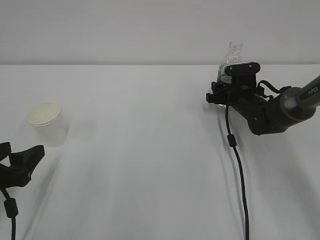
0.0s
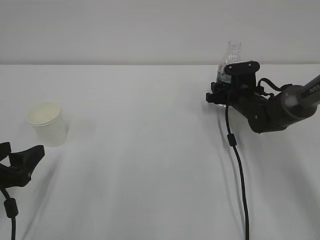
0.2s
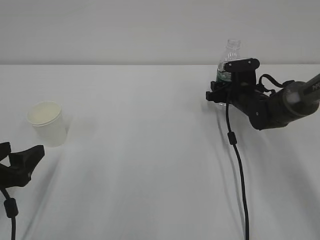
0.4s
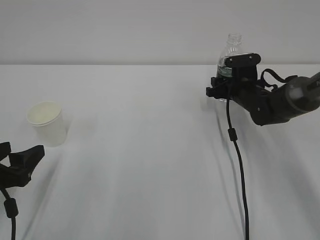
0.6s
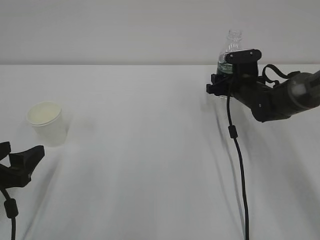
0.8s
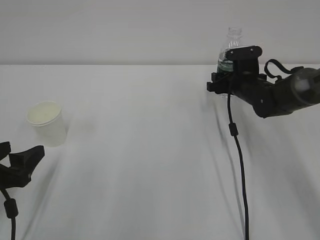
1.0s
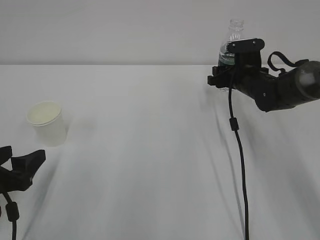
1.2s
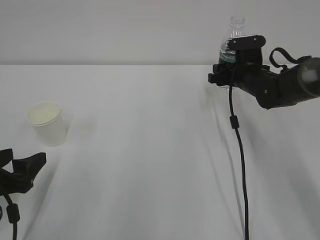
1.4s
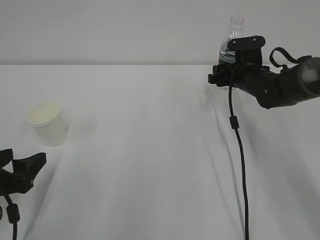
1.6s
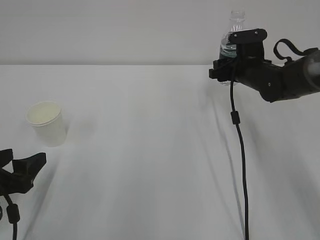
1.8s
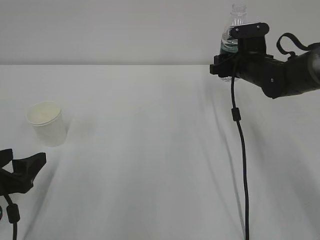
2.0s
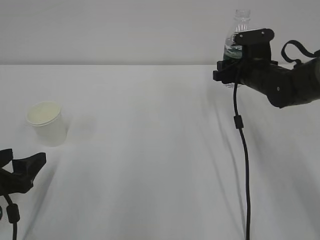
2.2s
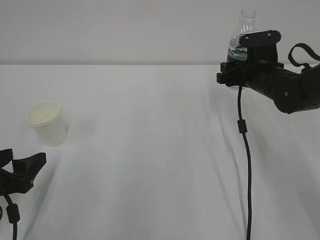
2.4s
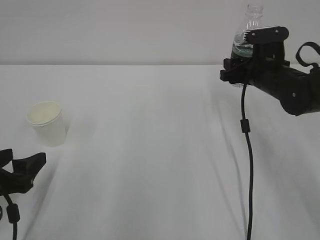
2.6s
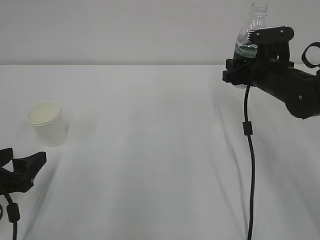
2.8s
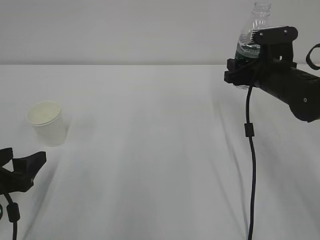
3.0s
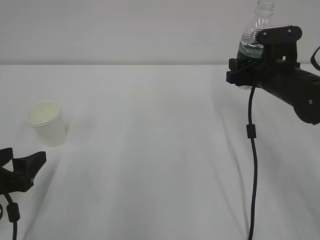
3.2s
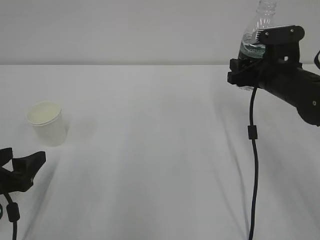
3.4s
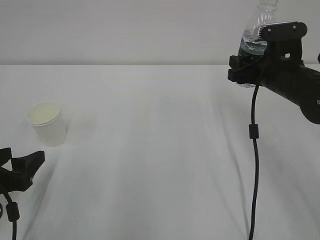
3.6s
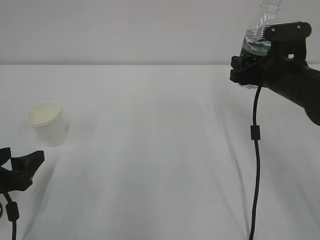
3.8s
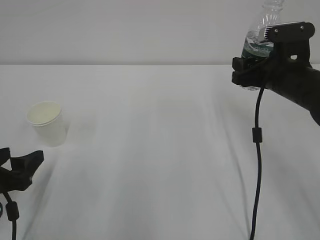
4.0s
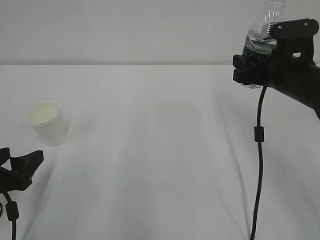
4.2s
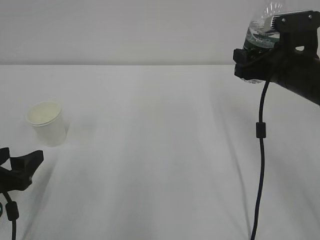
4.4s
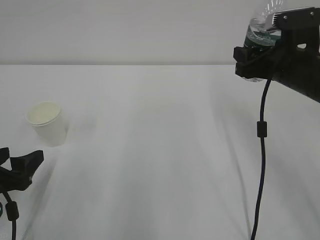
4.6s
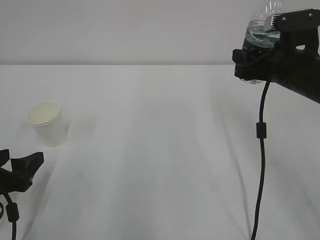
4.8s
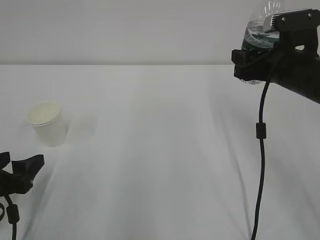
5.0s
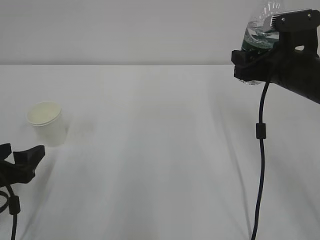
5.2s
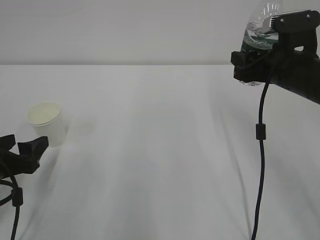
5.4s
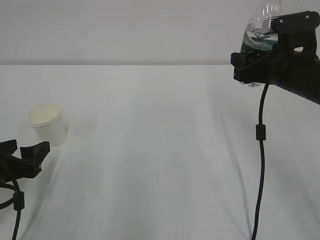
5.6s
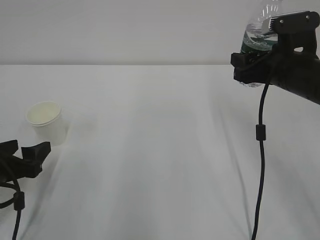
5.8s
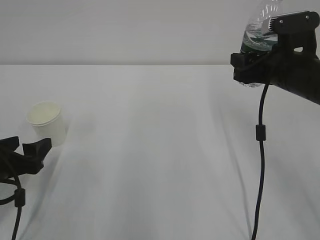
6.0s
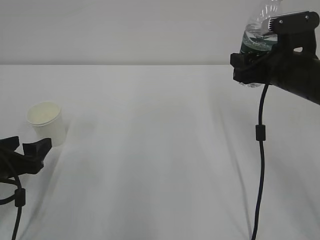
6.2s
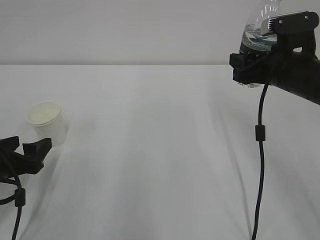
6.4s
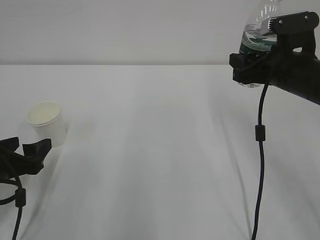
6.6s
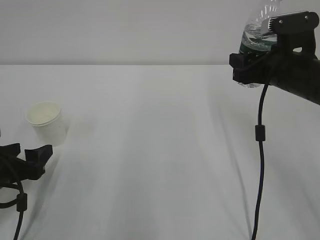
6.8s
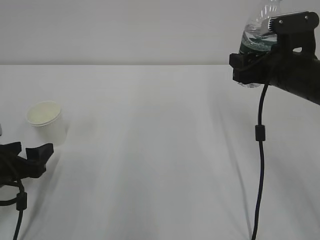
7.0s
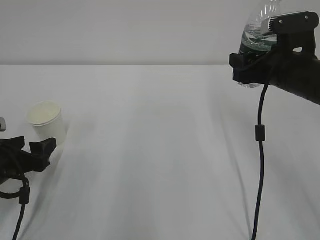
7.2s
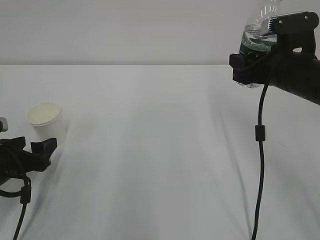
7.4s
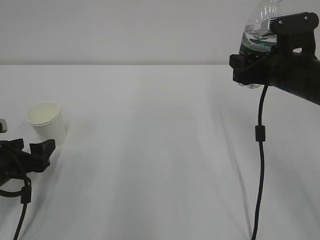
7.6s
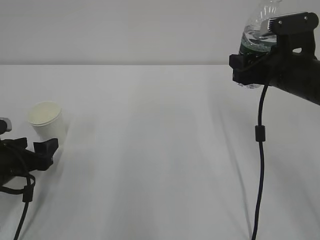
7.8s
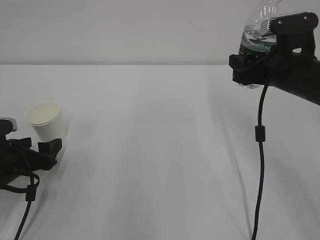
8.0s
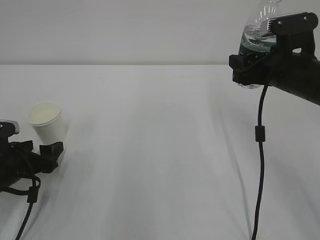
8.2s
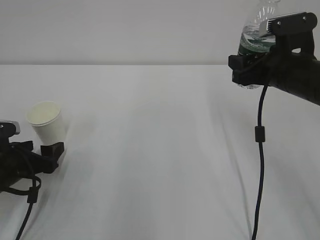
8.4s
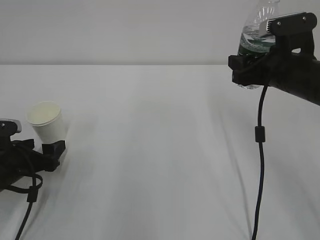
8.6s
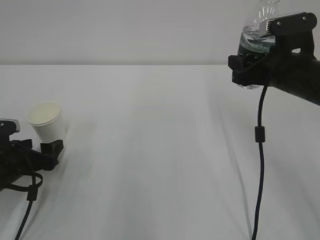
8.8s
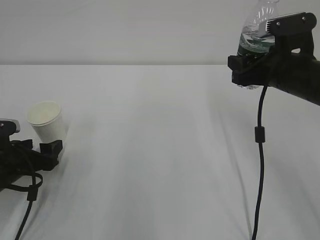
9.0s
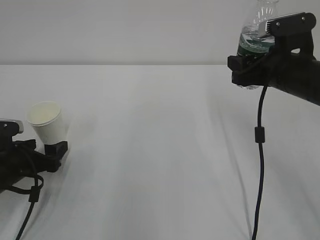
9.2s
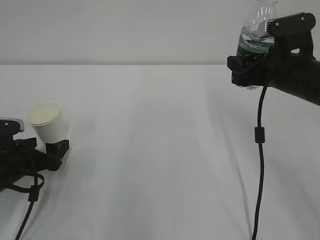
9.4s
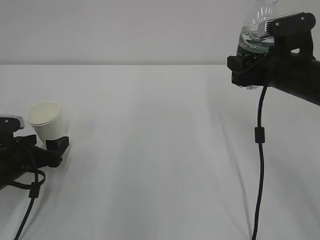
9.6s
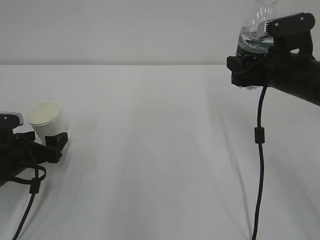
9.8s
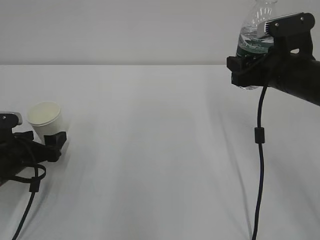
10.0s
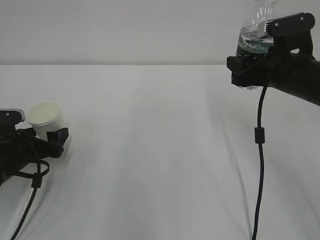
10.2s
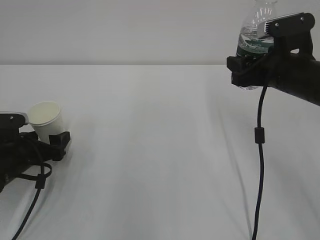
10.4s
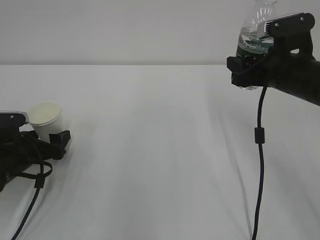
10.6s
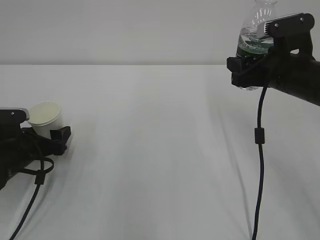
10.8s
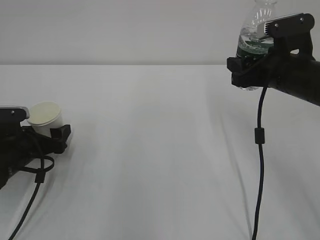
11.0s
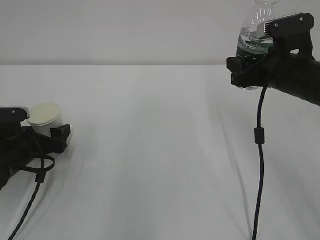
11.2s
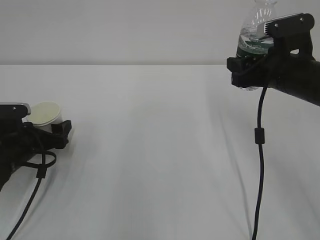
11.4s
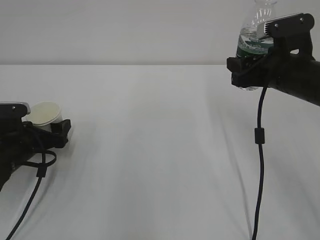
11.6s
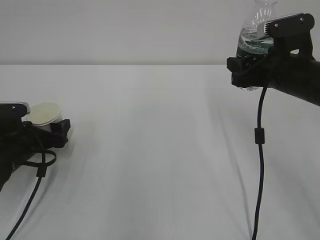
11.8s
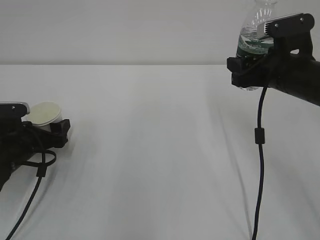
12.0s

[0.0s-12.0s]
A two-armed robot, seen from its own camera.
0.0s to 1.6s: The right gripper goes about 5 cm upward.
1.6s to 3.0s: The right gripper heads backward, covering some 10 cm.
3.0s to 4.4s: The right gripper ends up some 5 cm from where it was.
4.4s to 7.6s: There are only small adjustments of the grippers.
7.6s to 10.4s: The grippers stay close to where they were, moving slightly.
10.4s to 12.0s: The grippers make only small movements.

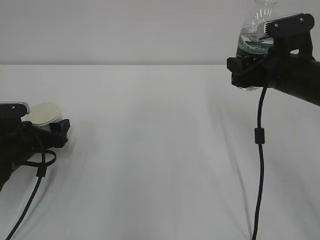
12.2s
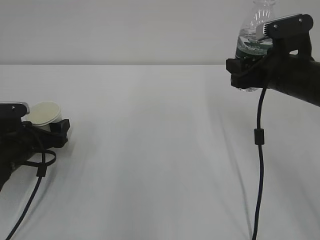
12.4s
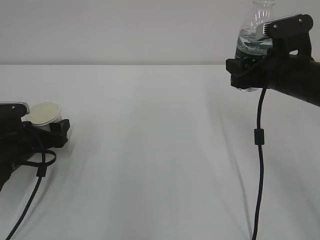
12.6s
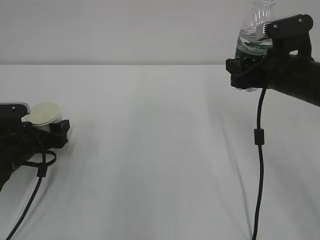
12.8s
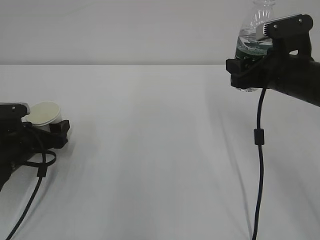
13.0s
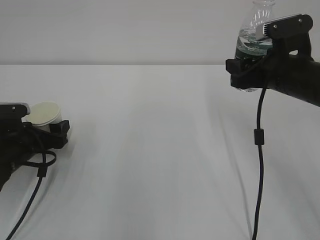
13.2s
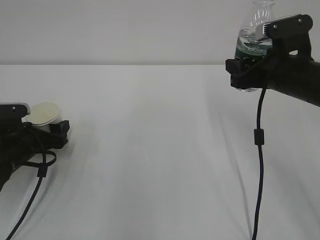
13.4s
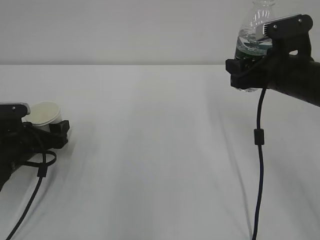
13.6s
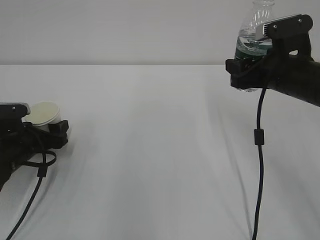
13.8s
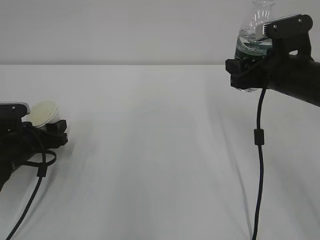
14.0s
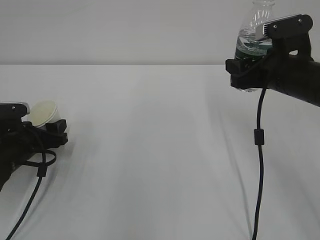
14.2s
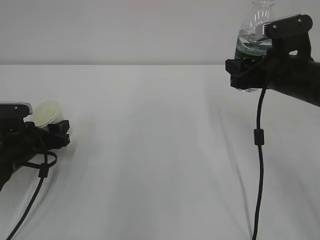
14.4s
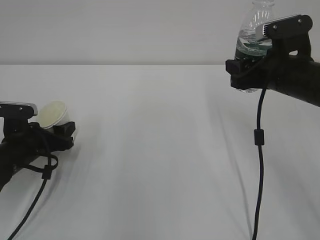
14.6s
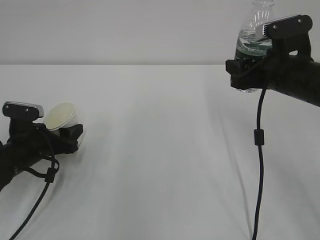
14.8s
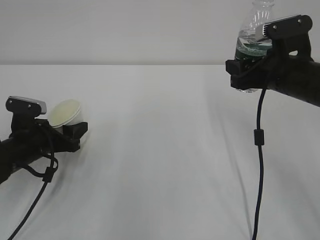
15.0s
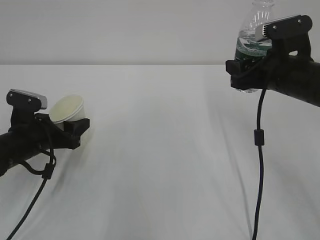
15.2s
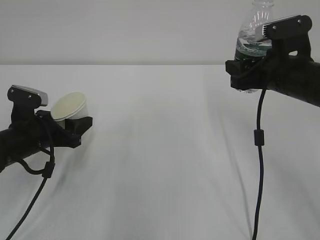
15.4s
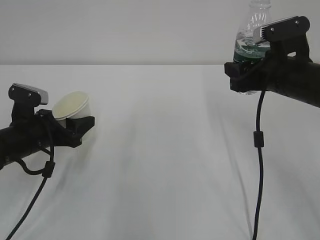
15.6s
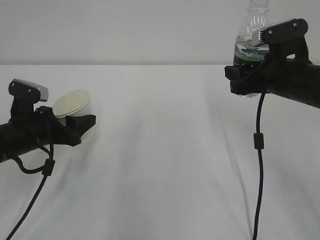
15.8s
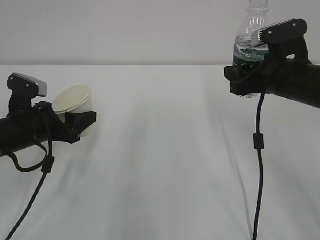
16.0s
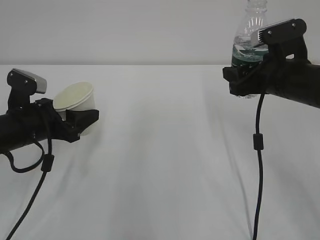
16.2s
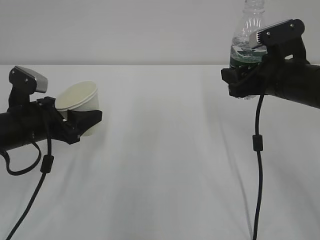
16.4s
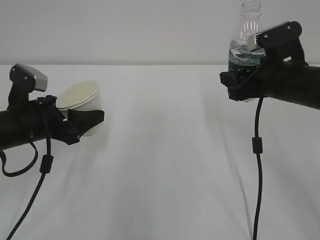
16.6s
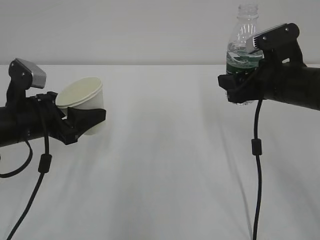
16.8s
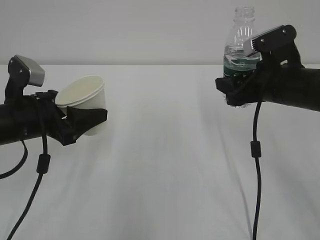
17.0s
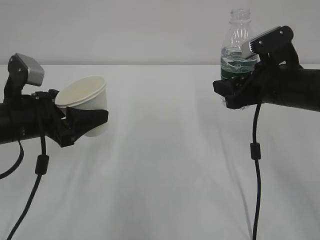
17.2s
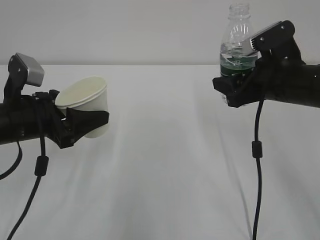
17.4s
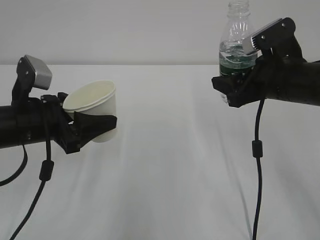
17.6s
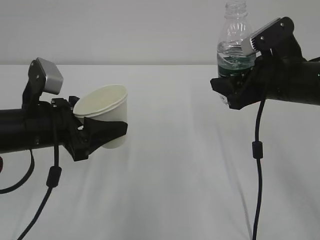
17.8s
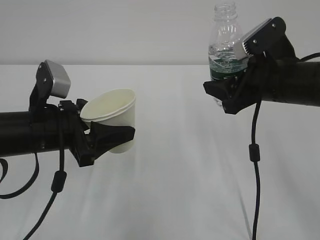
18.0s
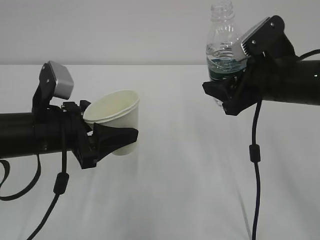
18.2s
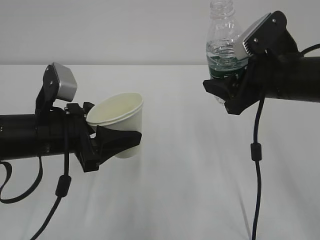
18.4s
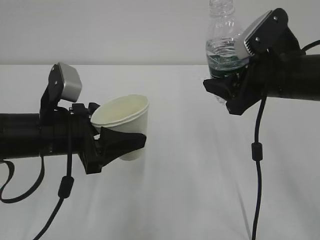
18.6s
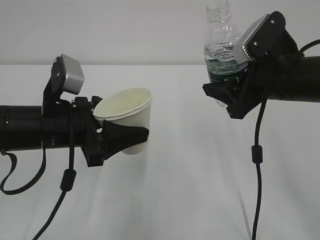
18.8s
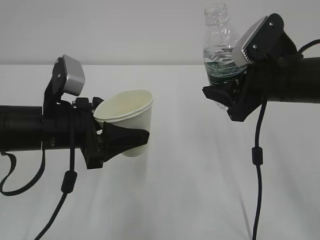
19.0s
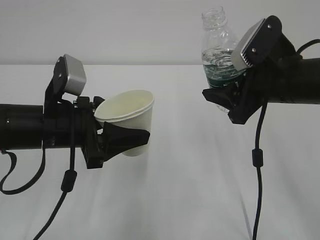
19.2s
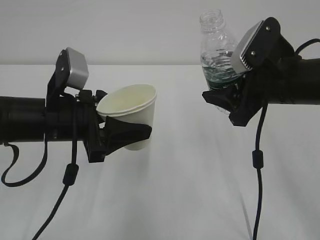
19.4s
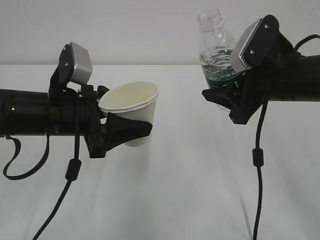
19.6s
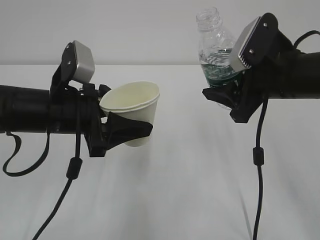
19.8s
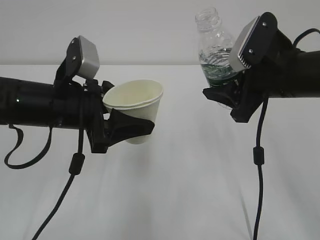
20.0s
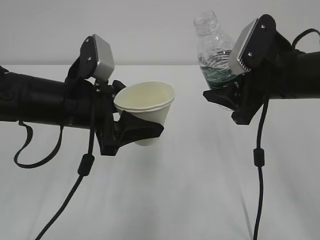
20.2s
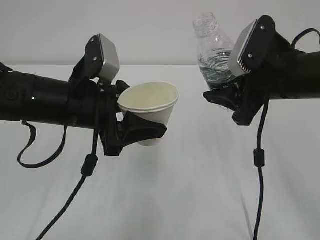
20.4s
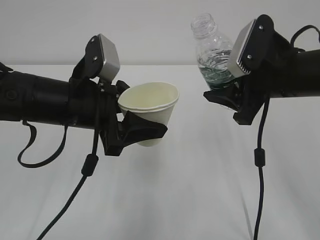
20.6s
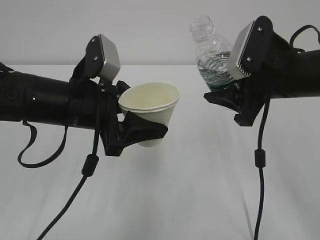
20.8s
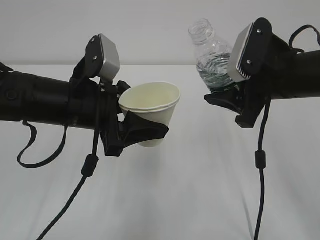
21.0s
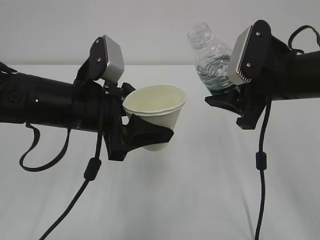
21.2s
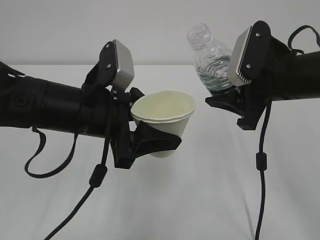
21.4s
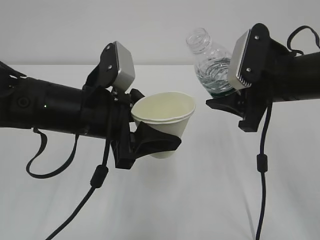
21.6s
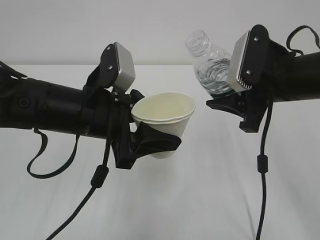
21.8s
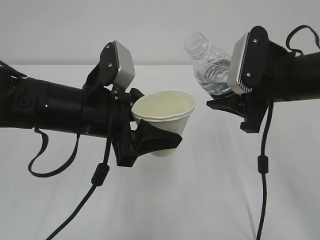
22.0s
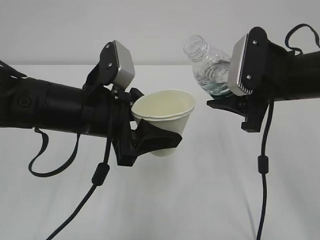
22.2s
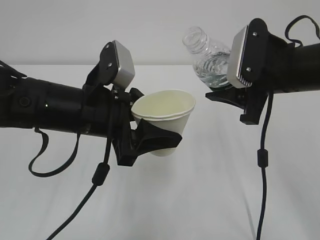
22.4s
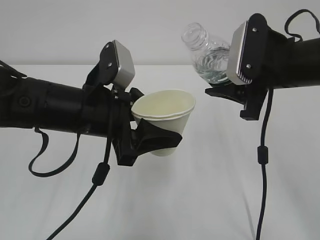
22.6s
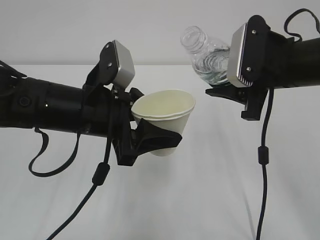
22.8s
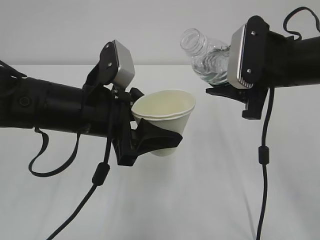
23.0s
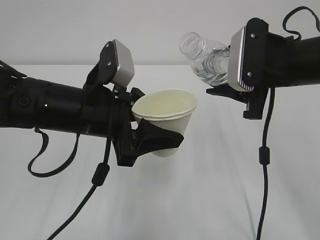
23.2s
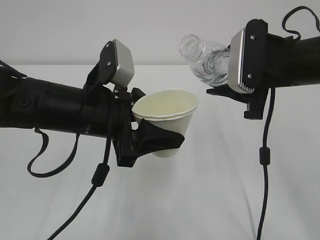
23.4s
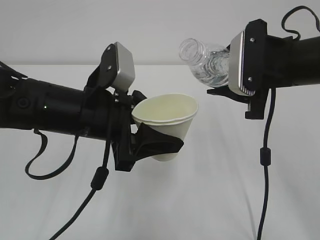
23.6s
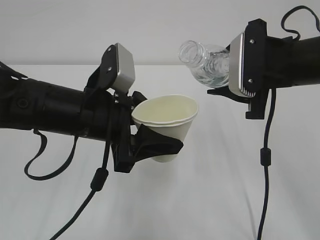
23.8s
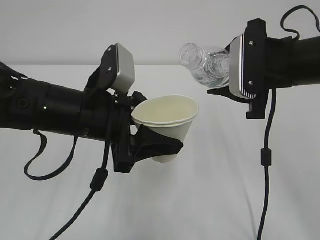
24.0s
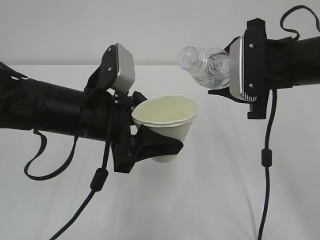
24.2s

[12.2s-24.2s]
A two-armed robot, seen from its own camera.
13.8s to 15.2s: The left gripper closes up.
15.2s to 16.6s: The left gripper is displaced upward by roughly 5 cm.
16.6s to 18.2s: The left gripper travels to the right by approximately 5 cm.
18.2s to 19.8s: The grippers stay close to where they were, moving slightly.
19.8s to 21.2s: The grippers make only small movements.
21.2s to 22.6s: There are only small adjustments of the grippers.
22.6s to 24.2s: The grippers stay close to where they were, moving slightly.
